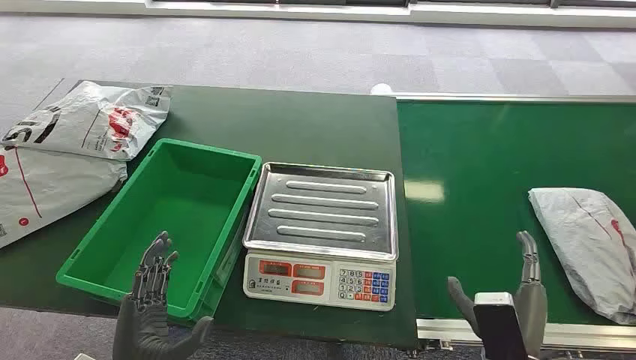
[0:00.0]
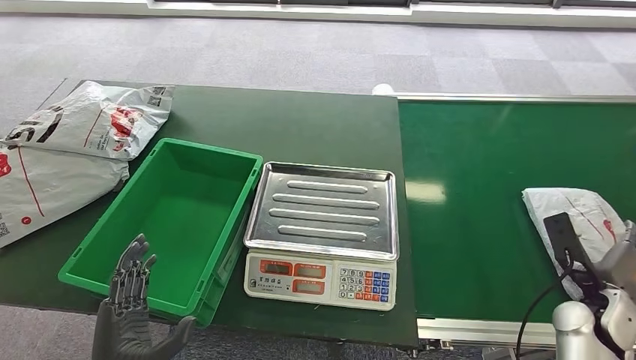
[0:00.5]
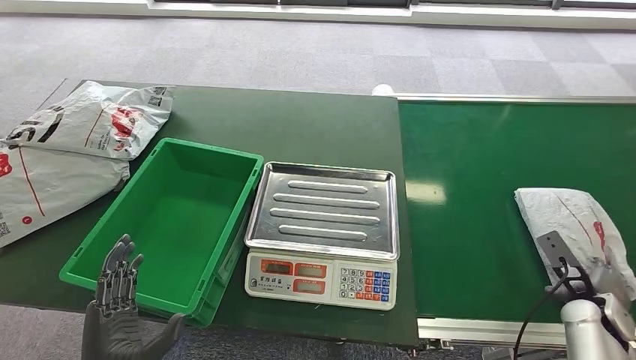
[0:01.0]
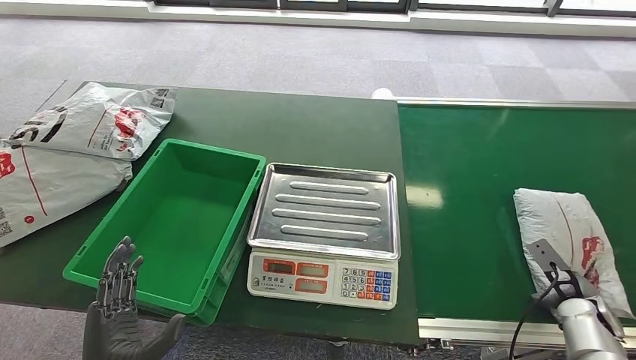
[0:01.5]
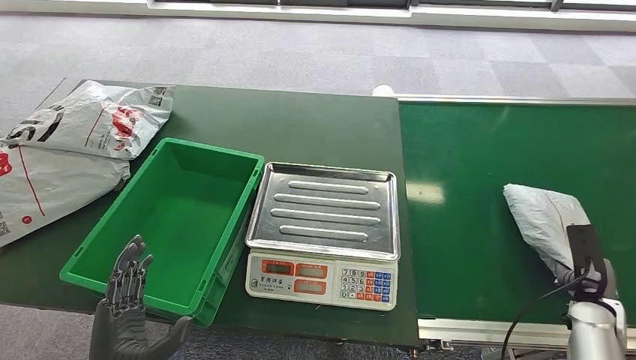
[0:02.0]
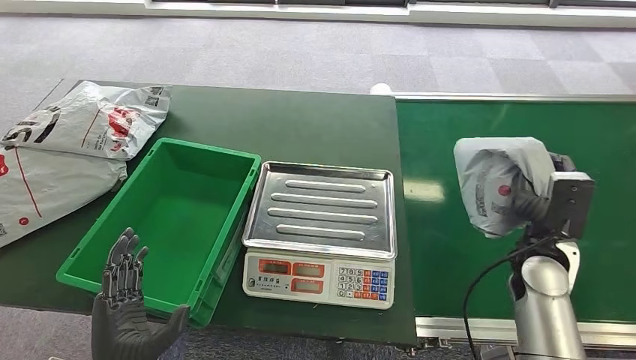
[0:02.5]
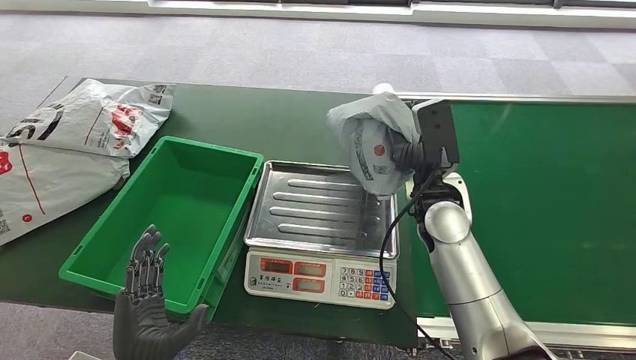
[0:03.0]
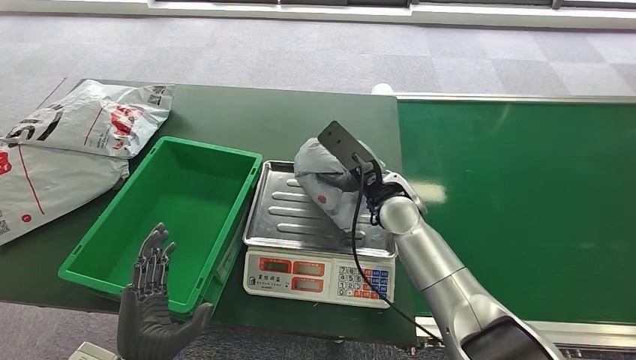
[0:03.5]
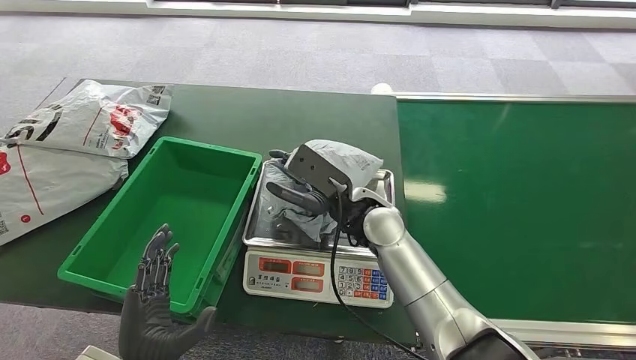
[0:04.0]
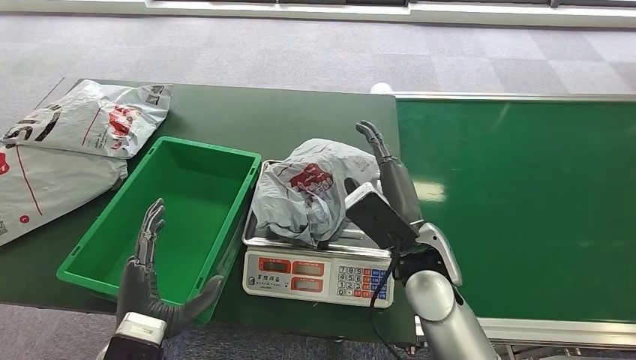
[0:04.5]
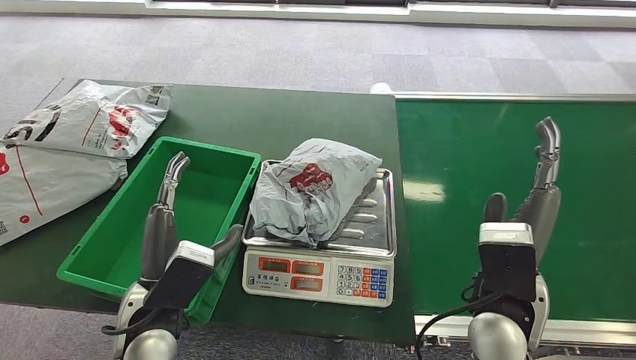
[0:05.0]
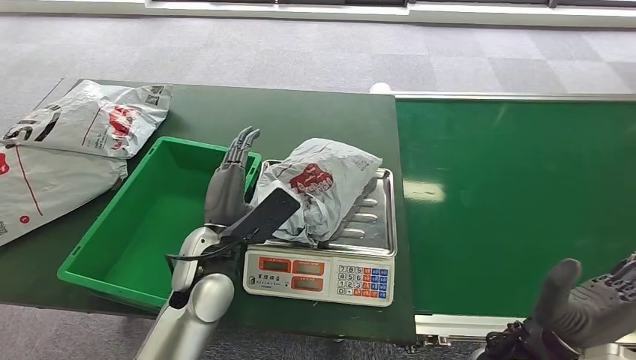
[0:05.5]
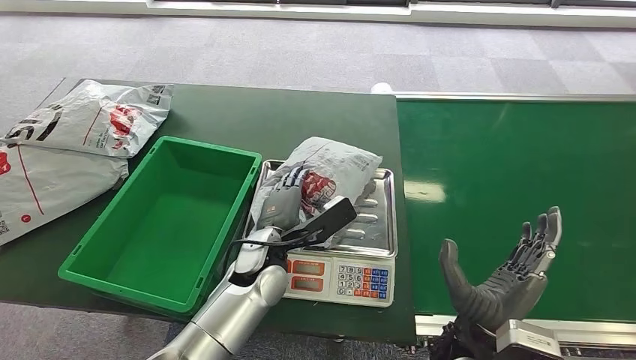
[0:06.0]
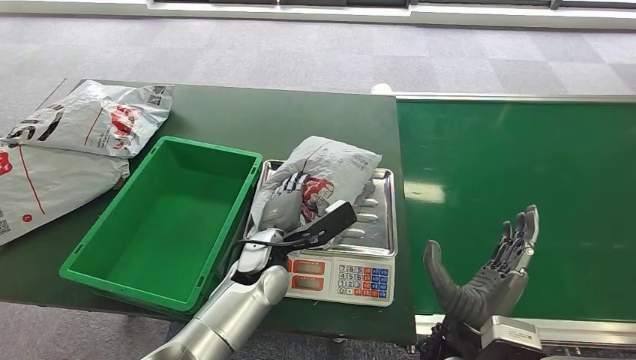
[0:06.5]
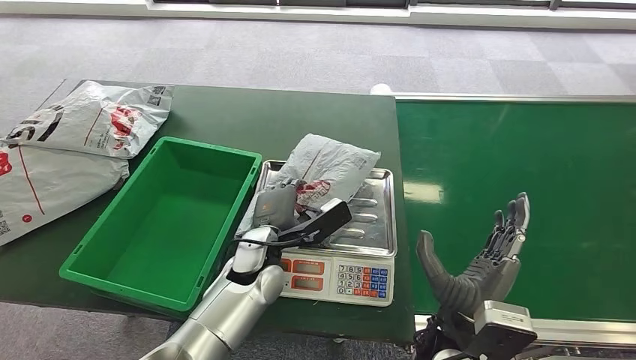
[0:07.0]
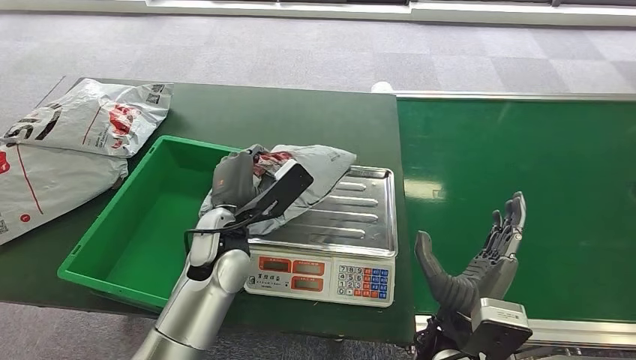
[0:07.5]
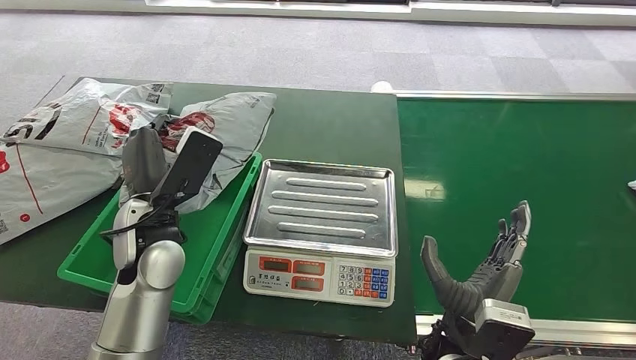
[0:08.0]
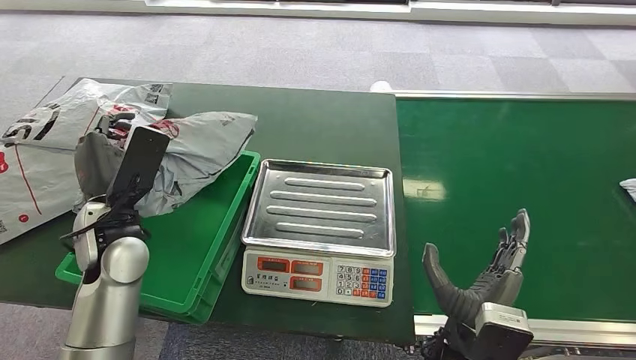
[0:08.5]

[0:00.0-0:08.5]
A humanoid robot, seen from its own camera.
Step, 0:00.0 to 0:02.5: Pick up the package from the conveyor belt.
Step, 0:03.0 to 0:04.5: Place the package onto the inbound machine.
Step, 0:05.0 to 0:07.5: Pick up the package from the inbound machine.
Step, 0:08.0 to 0:08.5: Place the package into the parcel locker.
0:04.0 to 0:06.5: The right hand moves backward and to the right, some 20 cm. Meanwhile the left hand travels forward and to the right by approximately 25 cm.
